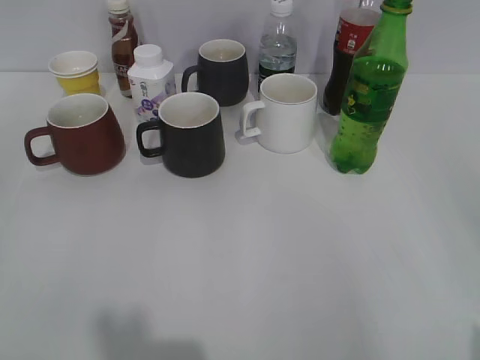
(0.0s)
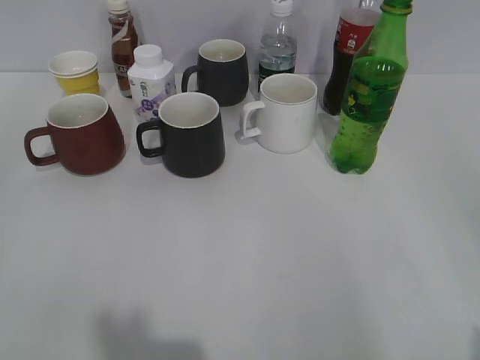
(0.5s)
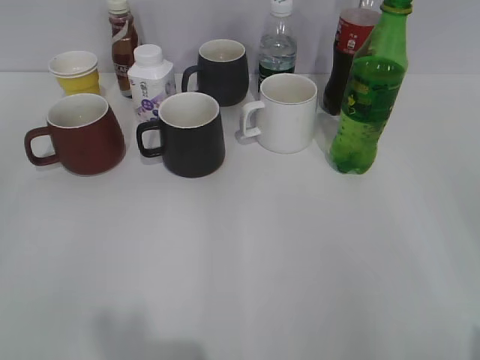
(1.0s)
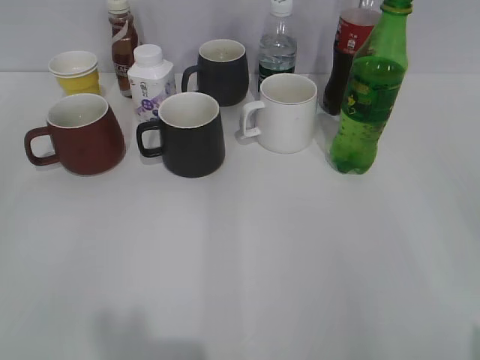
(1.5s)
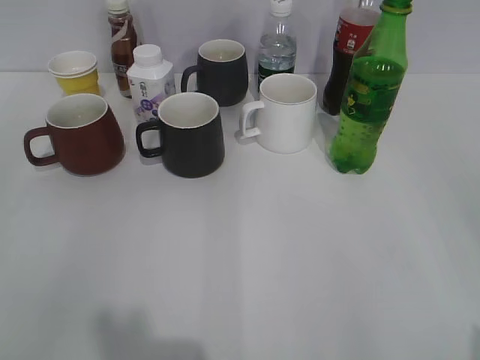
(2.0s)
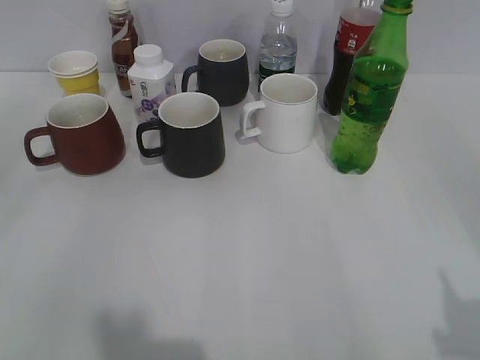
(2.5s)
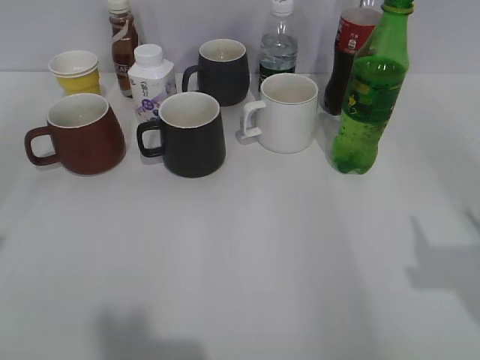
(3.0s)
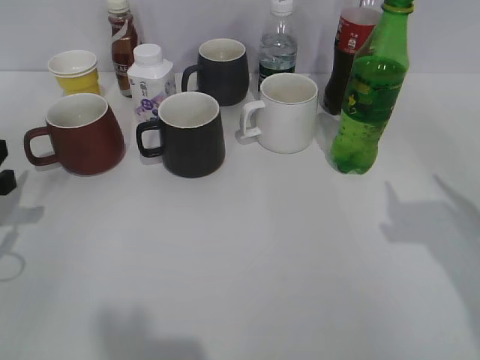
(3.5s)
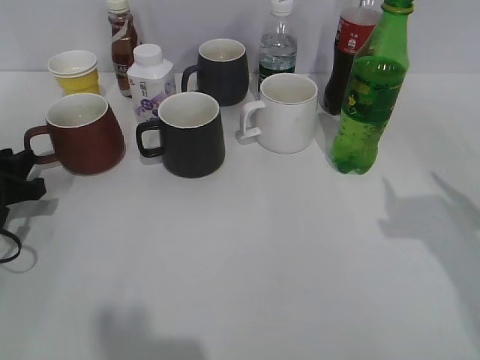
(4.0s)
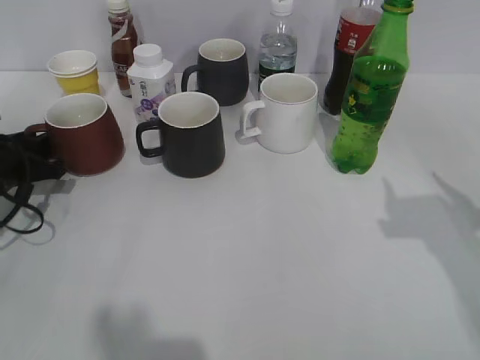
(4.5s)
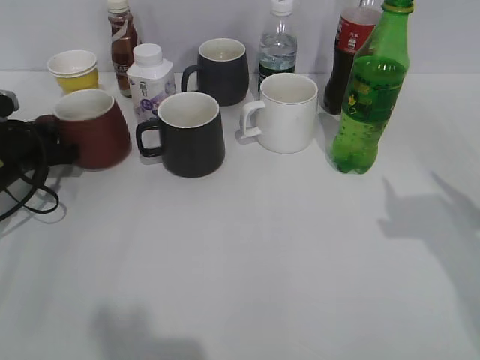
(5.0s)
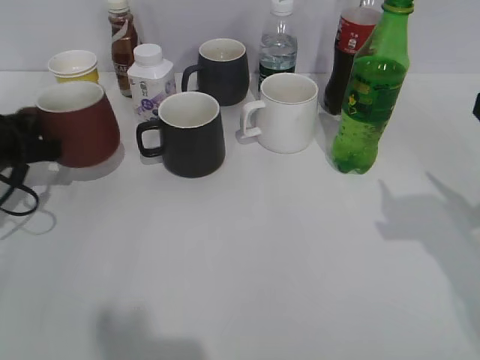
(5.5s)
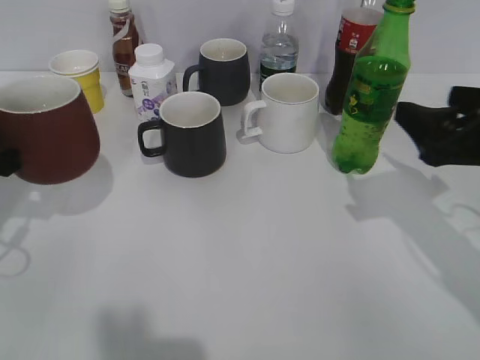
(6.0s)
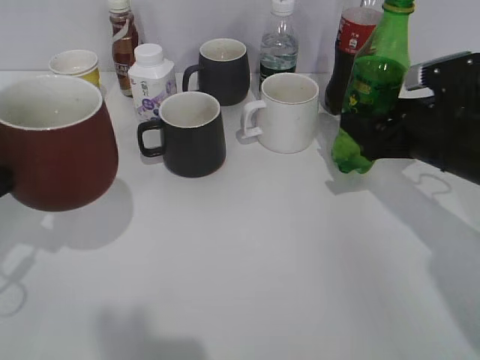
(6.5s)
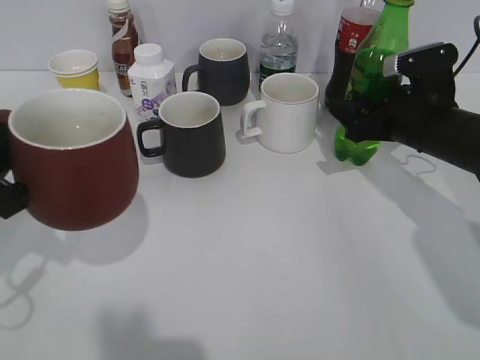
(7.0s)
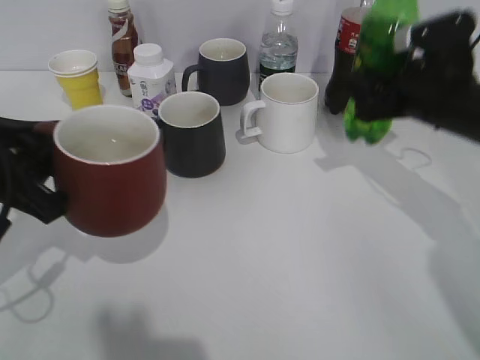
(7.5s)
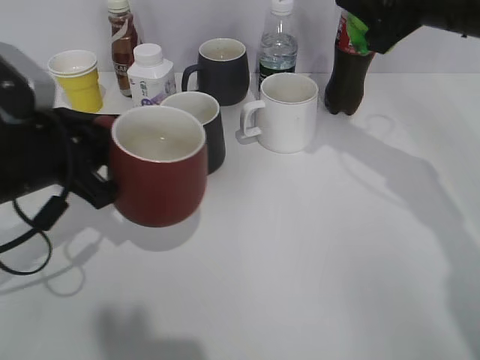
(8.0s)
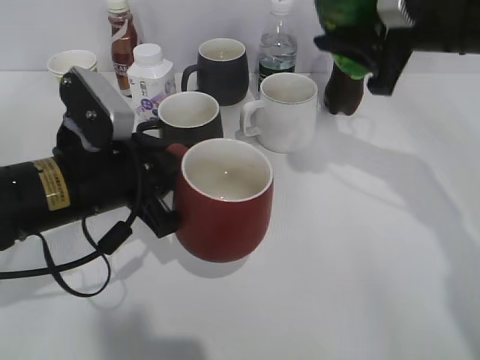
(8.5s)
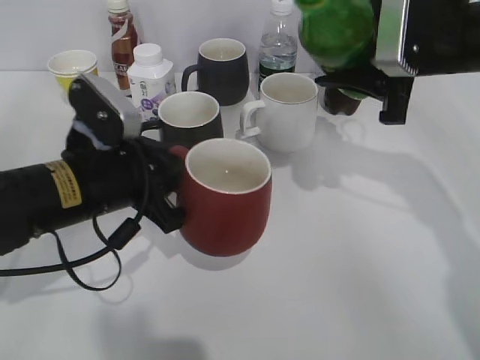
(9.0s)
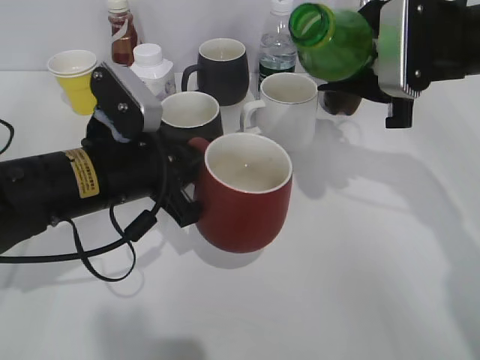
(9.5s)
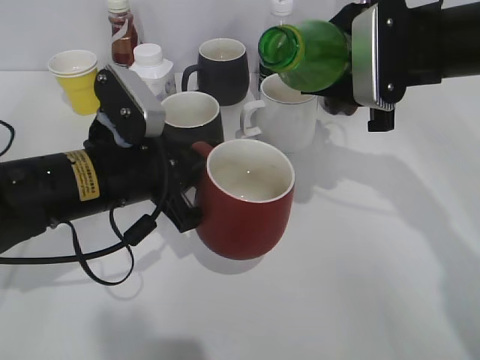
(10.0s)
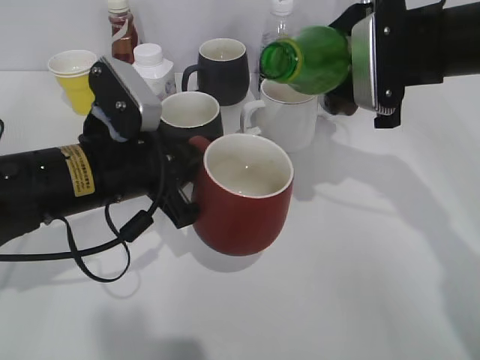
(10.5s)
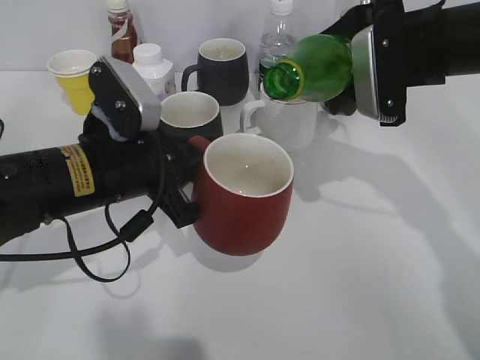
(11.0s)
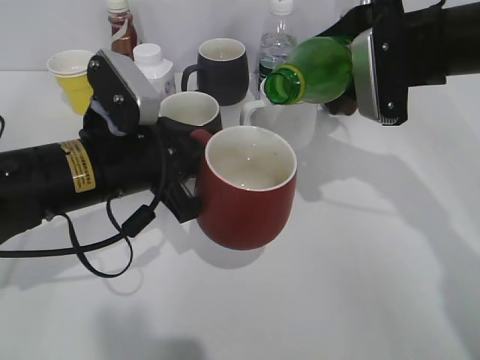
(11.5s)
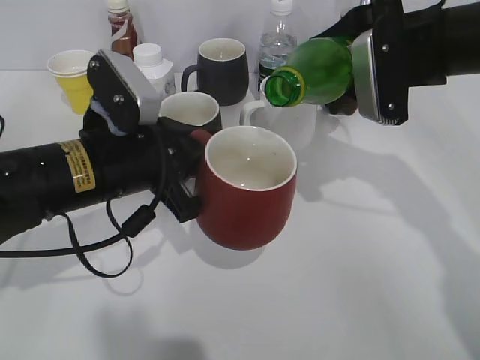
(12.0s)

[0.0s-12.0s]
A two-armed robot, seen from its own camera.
Step, 2.0s to 4.5s: Grasp the red cup with left gripper.
Step, 5.0s to 7.0s: Grasp the bottle with sprite with right gripper.
2.0s to 4.0s: The left gripper is displaced forward and downward by roughly 30 cm; the right gripper is displaced forward by roughly 20 cm.
4.0s to 6.0s: The left gripper is displaced upward by approximately 10 cm, reaches some 10 cm forward, then returns, and closes its fingers. The right gripper goes approximately 5 cm forward.
6.0s to 8.0s: The left gripper moves to the right, approximately 10 cm. The right gripper heads forward and upward, covering roughly 15 cm, and closes.
8.0s to 10.0s: The right gripper changes place by roughly 5 cm, while the left gripper goes roughly 5 cm to the right.
10.0s to 12.0s: The grippers move only a little.

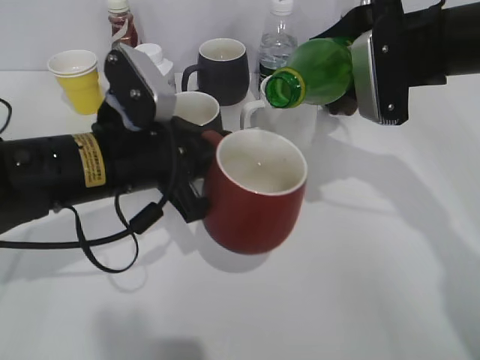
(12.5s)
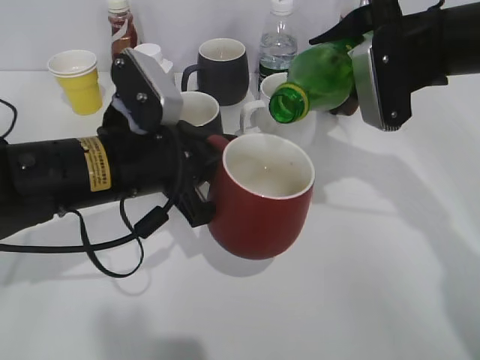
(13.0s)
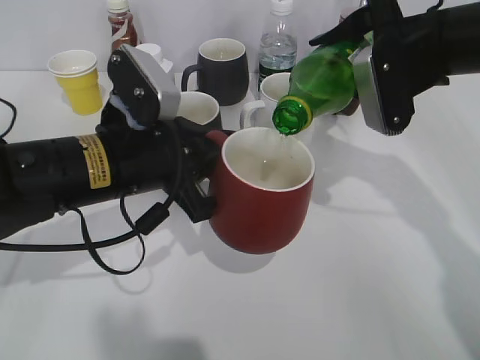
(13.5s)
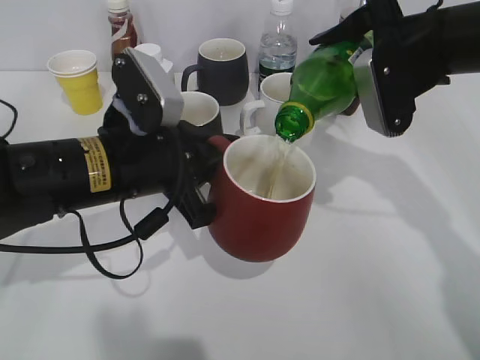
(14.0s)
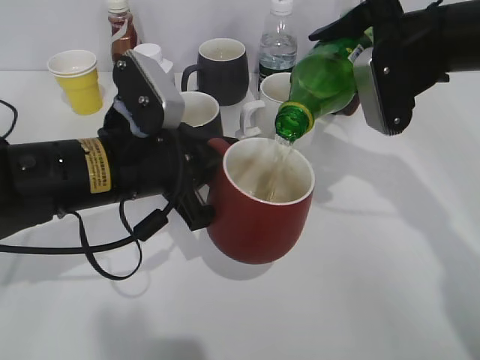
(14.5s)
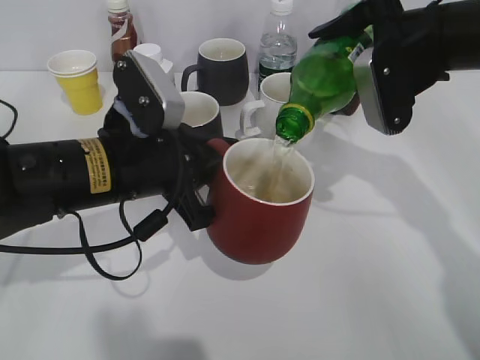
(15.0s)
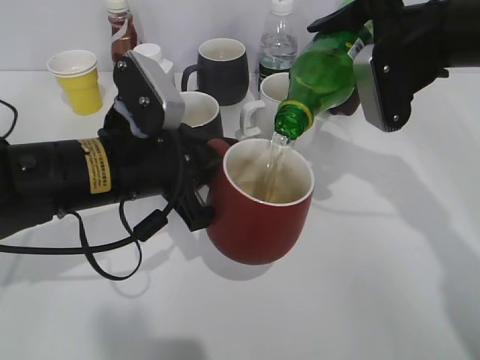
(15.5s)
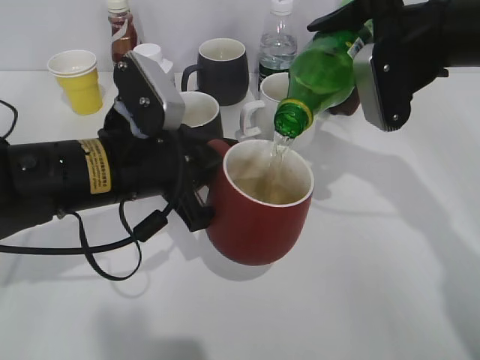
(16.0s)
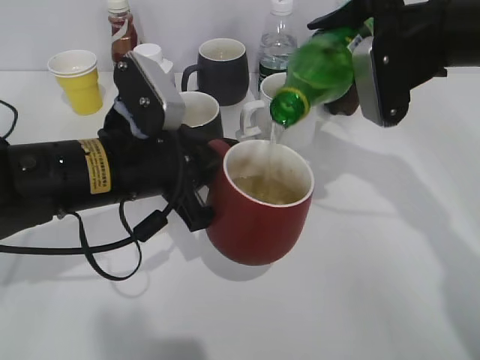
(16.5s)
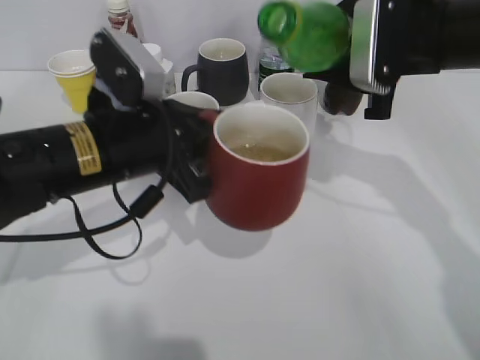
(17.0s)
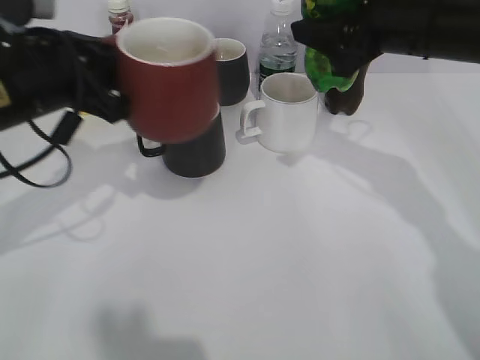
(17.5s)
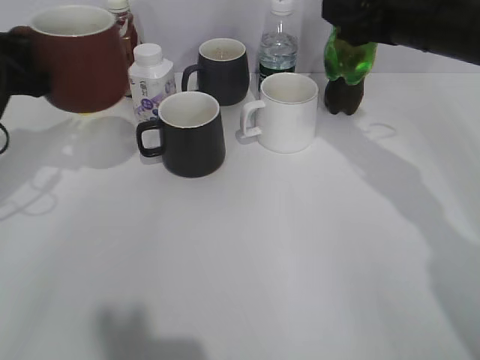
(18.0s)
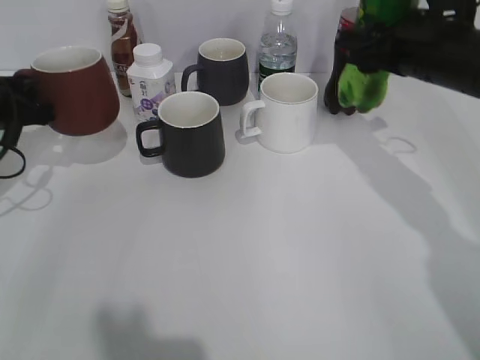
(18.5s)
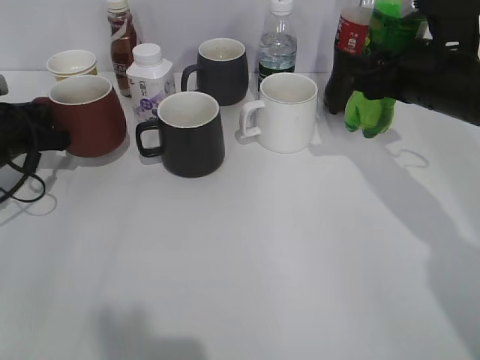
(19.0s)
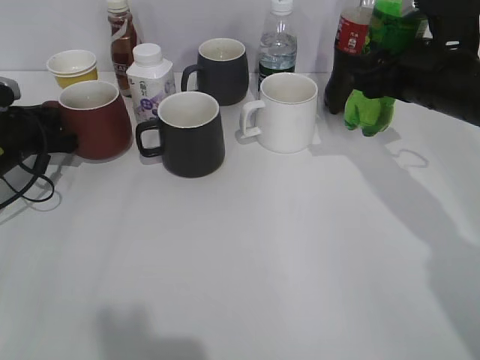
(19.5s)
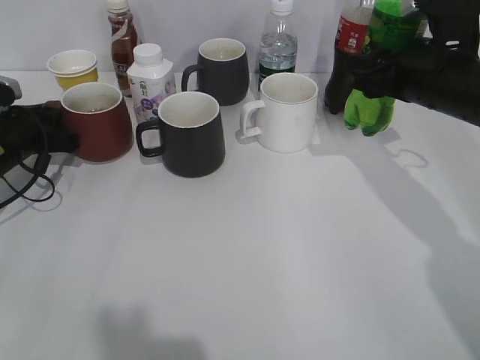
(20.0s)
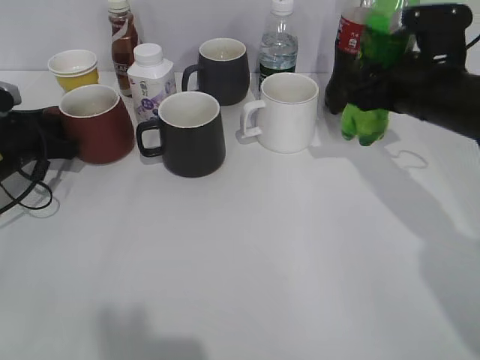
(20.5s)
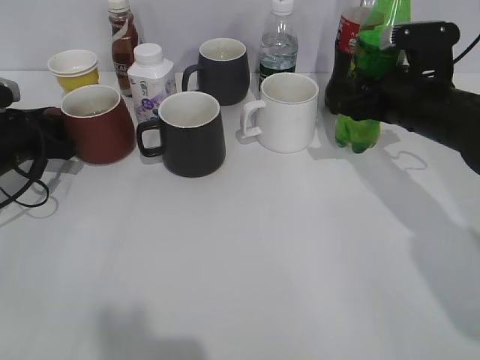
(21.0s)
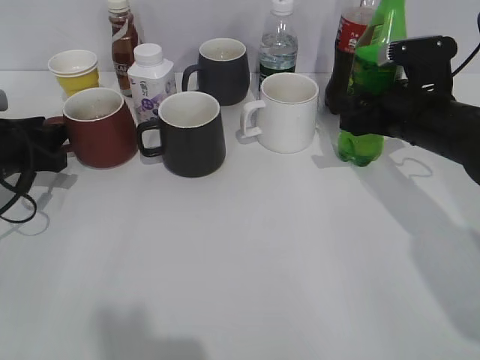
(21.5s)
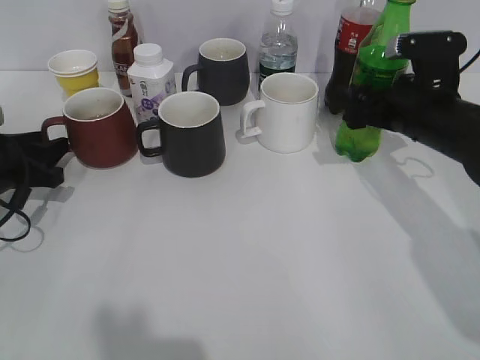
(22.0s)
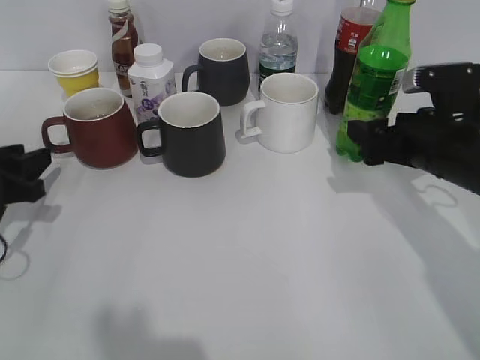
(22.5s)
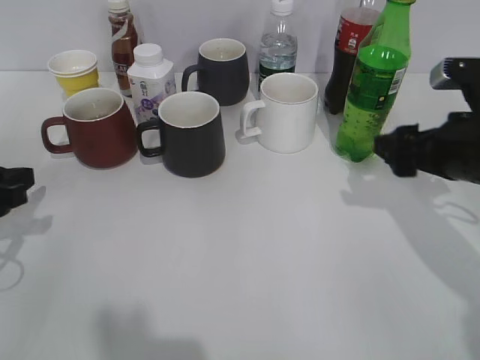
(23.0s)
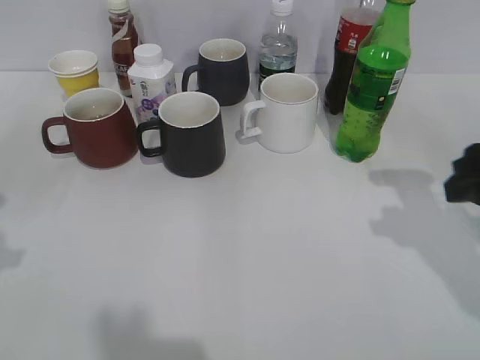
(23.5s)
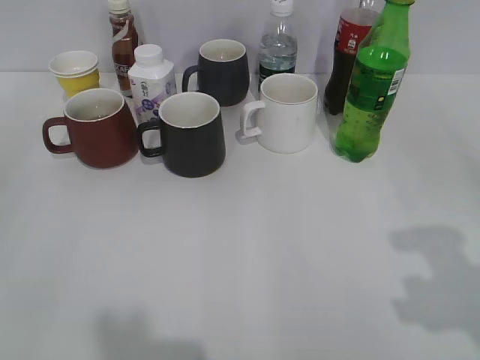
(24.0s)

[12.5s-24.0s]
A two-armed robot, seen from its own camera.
Step, 12.5s to 16.5s: Pour the sprite from bottle to cup with right gripper.
Step, 17.5s to 18.0s: Place the red cup on the table with left gripper.
Step, 18.5s to 22.5s: Place the sprite bottle on the table with right gripper.
12.5s to 14.5s: The grippers stay close to where they were, moving slightly.
14.5s to 16.5s: Neither gripper changes place.
16.5s to 18.5s: The right gripper shifts by about 5 cm. The left gripper moves to the left and forward, some 20 cm.
18.5s to 20.0s: The left gripper is displaced downward by some 5 cm.
20.0s to 22.0s: The left gripper goes about 5 cm backward, and opens its fingers, while the right gripper opens its fingers.
22.0s to 24.0s: The grippers both shift backward and upward by roughly 30 cm. The right gripper closes up.

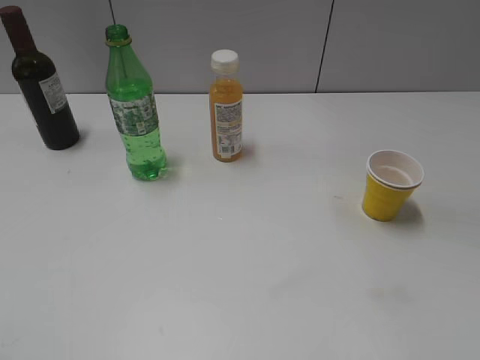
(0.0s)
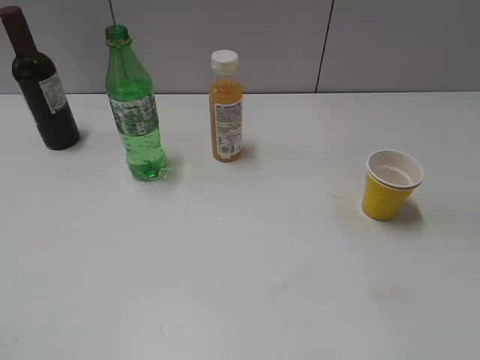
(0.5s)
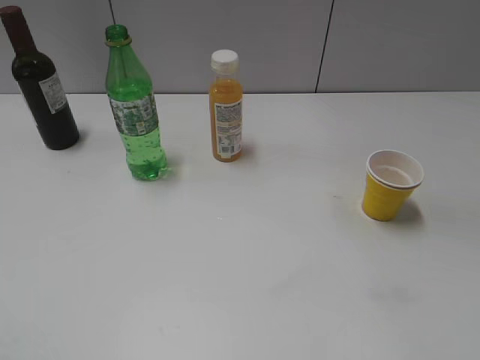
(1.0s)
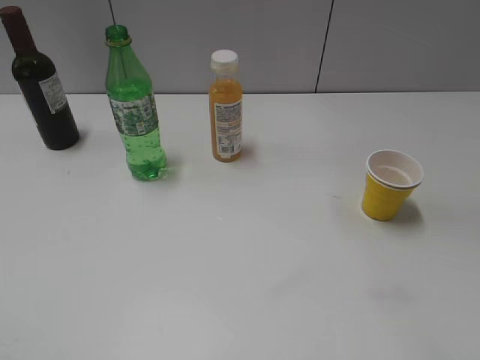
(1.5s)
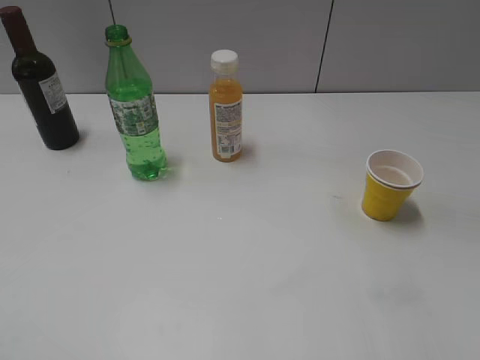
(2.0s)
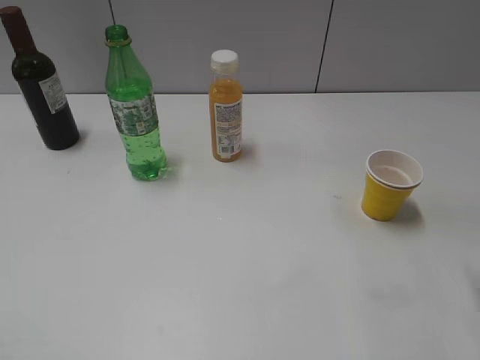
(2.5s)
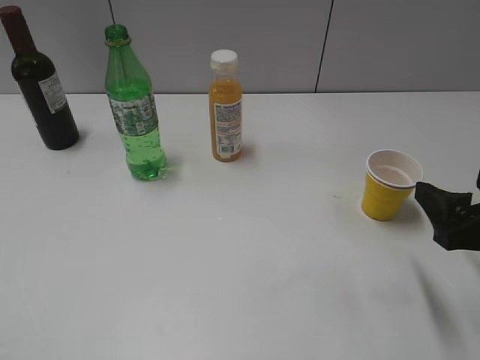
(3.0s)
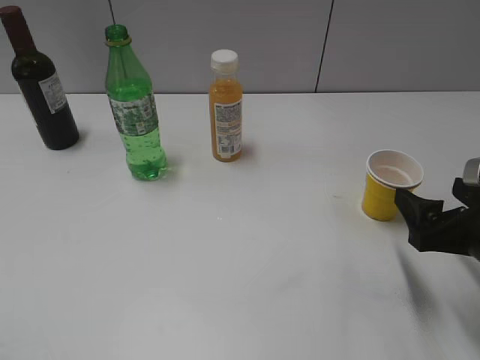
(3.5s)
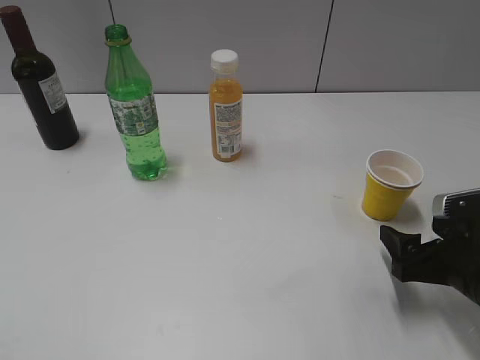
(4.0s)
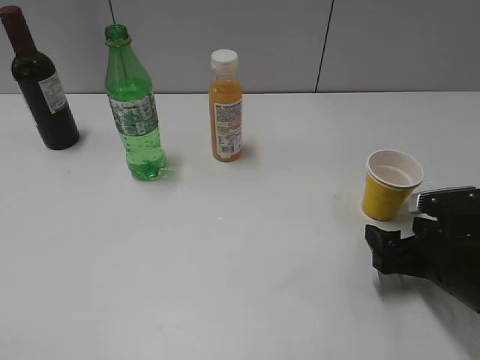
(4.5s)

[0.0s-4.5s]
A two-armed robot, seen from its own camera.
2.0s to 4.5s: The right gripper goes approximately 25 cm downward and forward.
